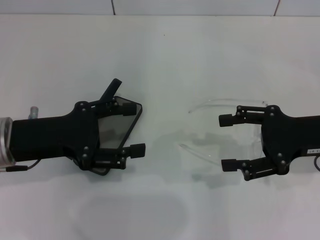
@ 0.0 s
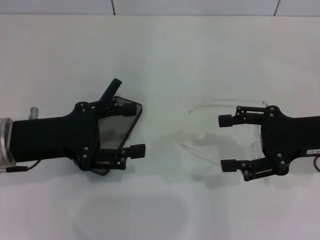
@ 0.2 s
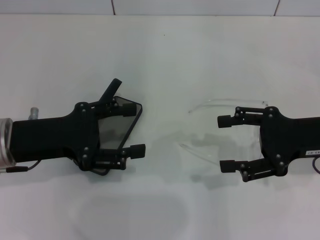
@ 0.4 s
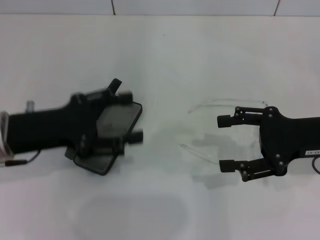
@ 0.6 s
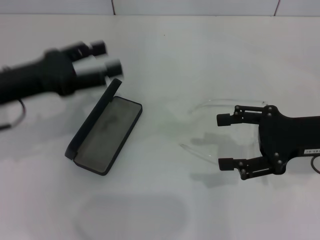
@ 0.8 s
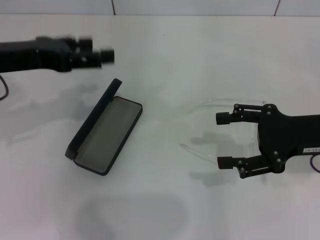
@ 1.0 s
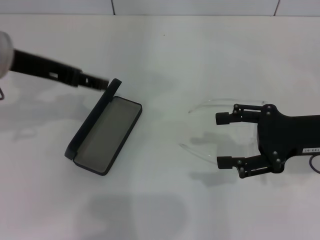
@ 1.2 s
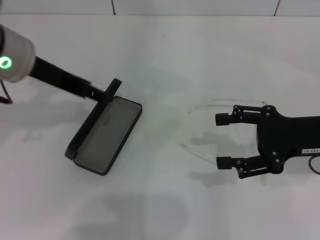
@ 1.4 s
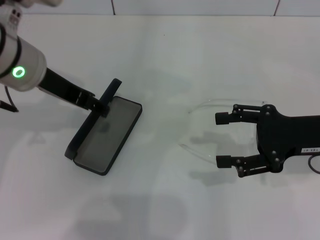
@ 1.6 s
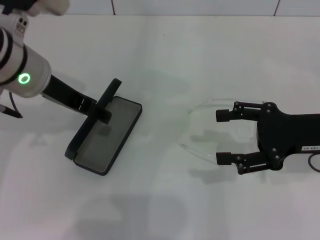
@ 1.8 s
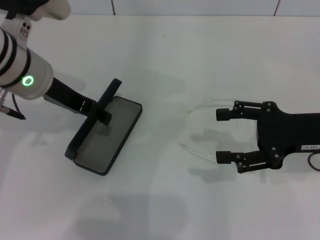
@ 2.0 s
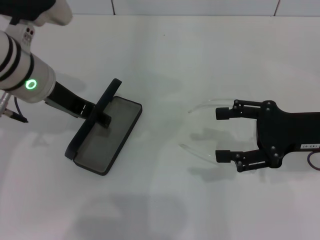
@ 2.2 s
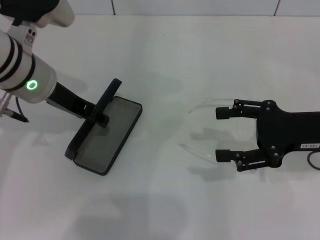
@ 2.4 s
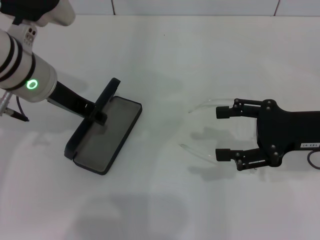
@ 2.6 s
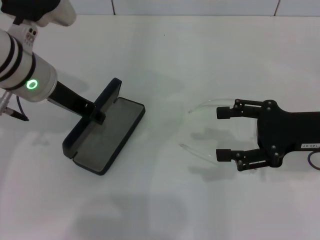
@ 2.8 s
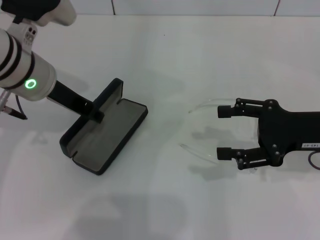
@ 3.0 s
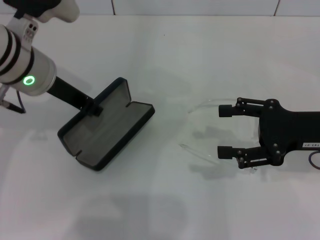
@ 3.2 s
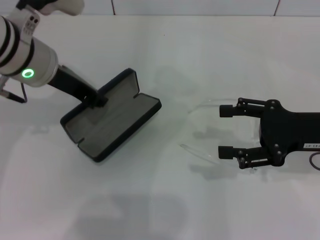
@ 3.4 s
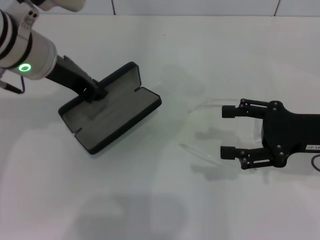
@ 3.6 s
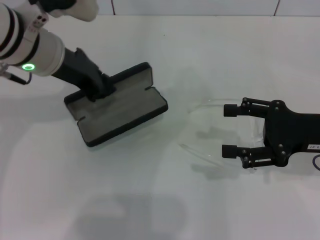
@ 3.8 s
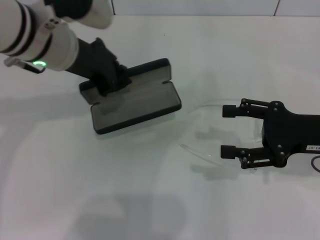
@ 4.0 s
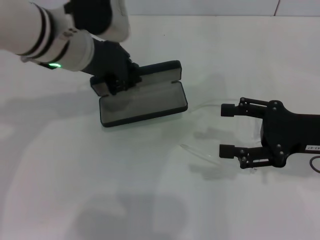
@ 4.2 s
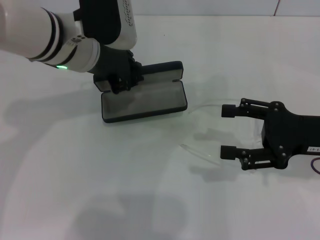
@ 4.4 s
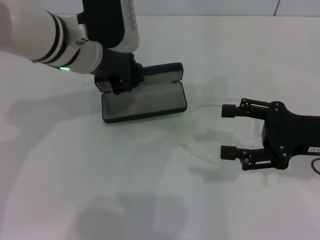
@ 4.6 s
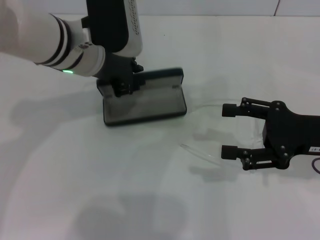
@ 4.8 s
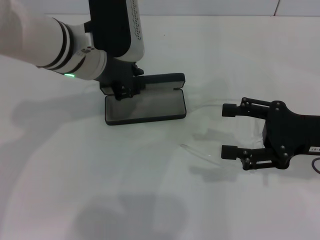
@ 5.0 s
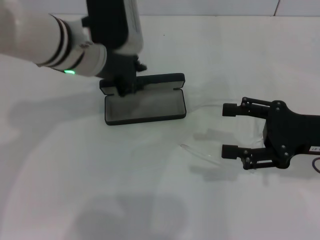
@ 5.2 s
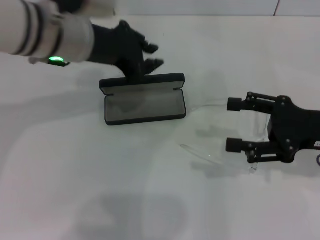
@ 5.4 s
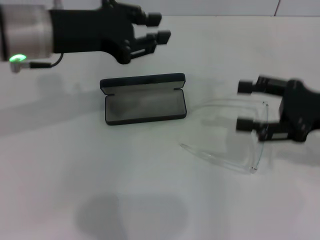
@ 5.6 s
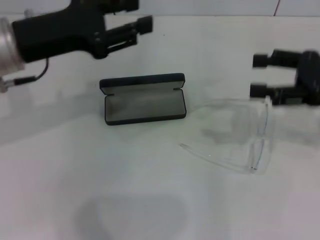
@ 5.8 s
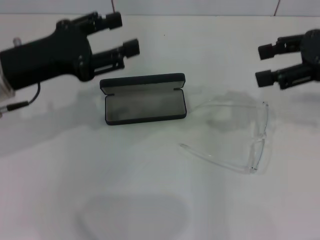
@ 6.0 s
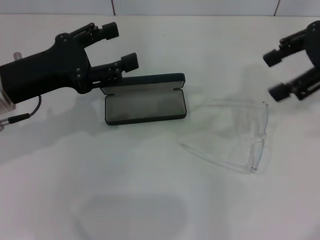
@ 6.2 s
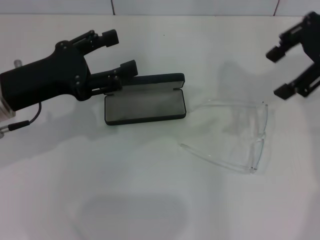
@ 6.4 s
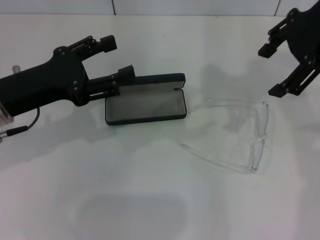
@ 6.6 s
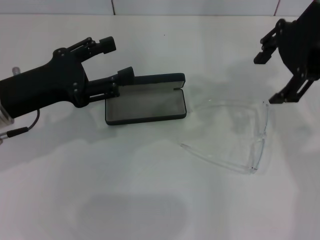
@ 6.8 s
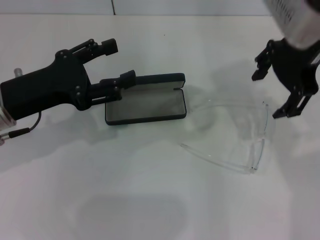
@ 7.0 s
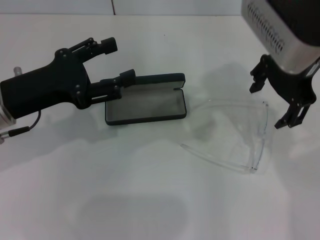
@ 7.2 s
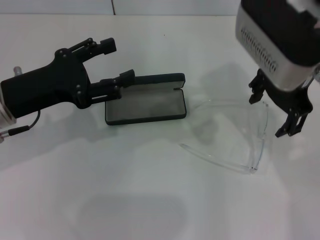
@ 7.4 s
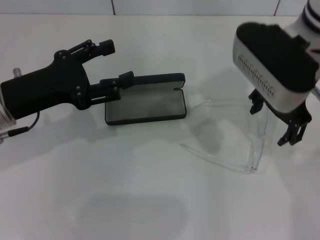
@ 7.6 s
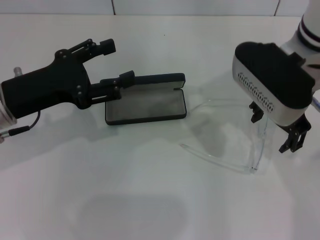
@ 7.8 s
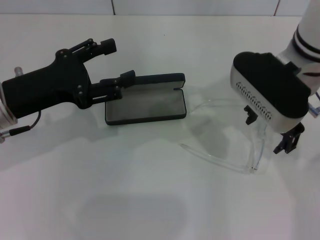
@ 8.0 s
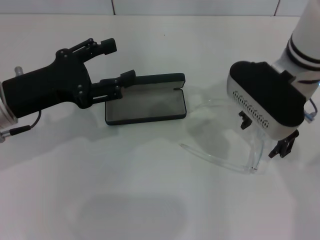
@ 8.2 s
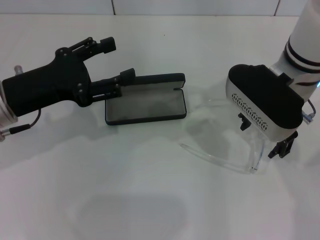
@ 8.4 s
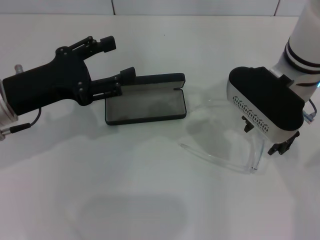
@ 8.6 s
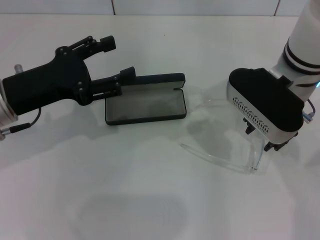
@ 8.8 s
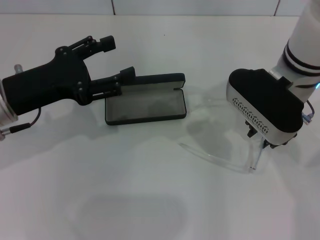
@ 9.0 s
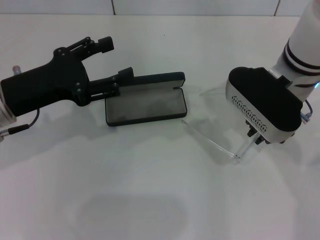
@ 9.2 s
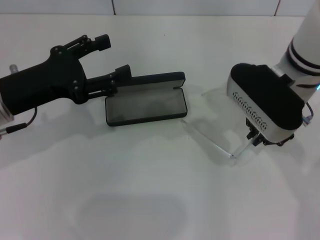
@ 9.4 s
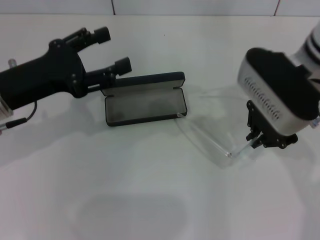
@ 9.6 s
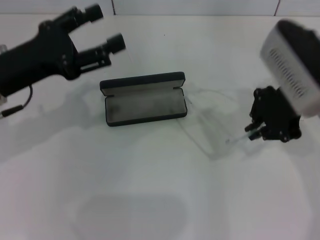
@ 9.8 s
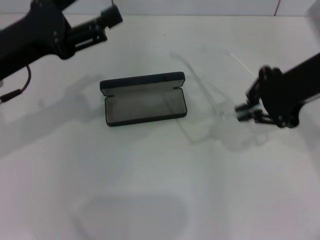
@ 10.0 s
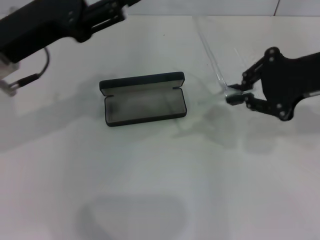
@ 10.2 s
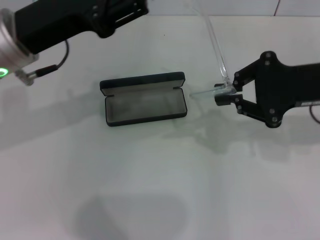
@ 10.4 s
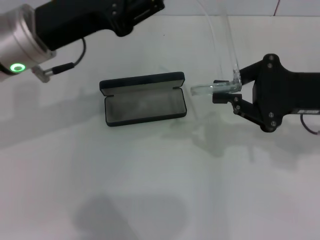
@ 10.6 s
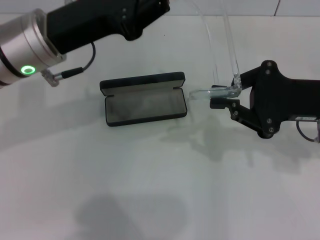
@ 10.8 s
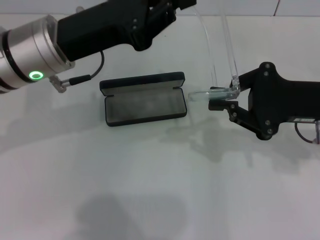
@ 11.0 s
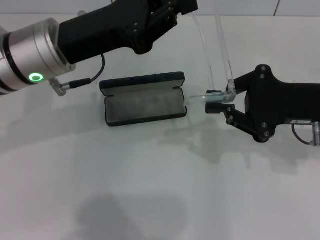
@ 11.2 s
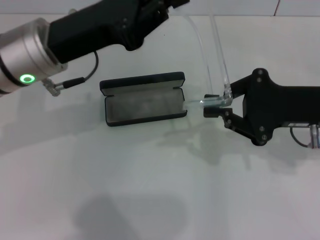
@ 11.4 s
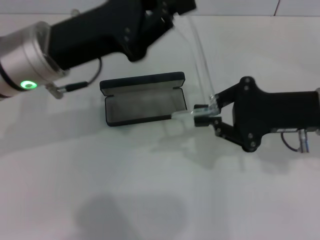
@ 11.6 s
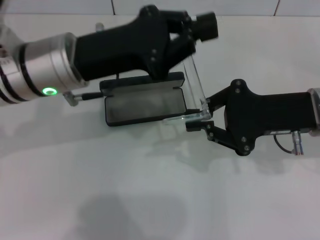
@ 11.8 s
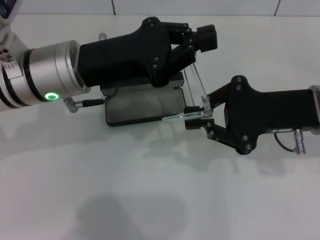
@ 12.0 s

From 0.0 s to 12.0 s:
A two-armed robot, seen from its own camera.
Step, from 0.0 s to 3.2 s: Grab the glasses case with your left hand.
Step, from 3.4 s to 4.8 s: Place the glasses case in the center of the table with your left hand.
Step, from 5.2 s to 9.2 s: Grab the eyeglass frame with your right hand.
From 0.0 s to 1.6 s: The left gripper moves upward, forward and to the right, approximately 15 cm.
From 1.6 s to 3.0 s: The left gripper closes up.
From 3.0 s to 4.4 s: The left gripper moves roughly 5 cm.
From 4.4 s to 6.0 s: The left gripper shifts about 15 cm to the left and backward, and opens up; the right gripper heads upward and forward, covering some 15 cm.
From 6.0 s to 7.6 s: The right gripper goes about 15 cm to the left, while the left gripper opens.
From 7.6 s to 9.0 s: The right gripper travels downward by roughly 5 cm, and closes.
From 9.0 s to 10.4 s: The right gripper moves to the right, about 10 cm, and closes up. The left gripper shifts about 5 cm upward.
From 10.4 s to 12.0 s: The left gripper shifts by about 5 cm, and closes up; the right gripper shifts by roughly 5 cm.

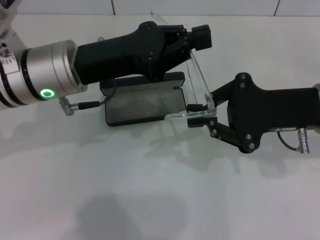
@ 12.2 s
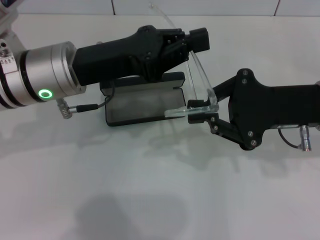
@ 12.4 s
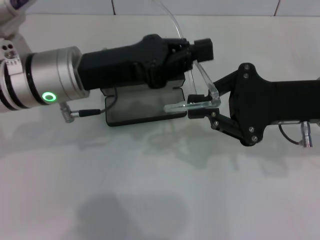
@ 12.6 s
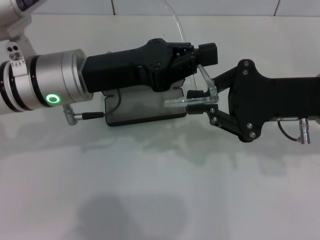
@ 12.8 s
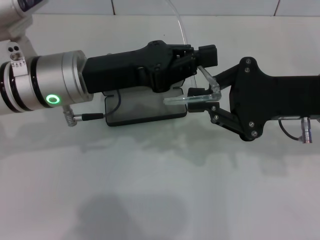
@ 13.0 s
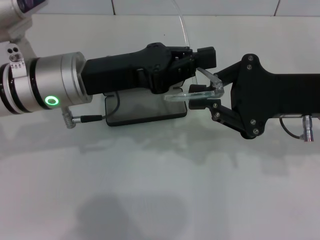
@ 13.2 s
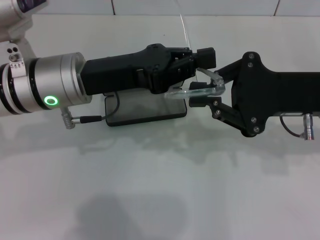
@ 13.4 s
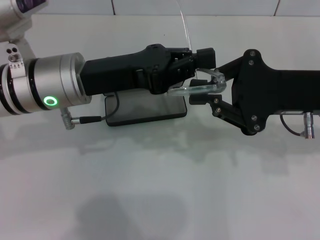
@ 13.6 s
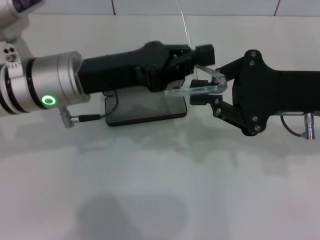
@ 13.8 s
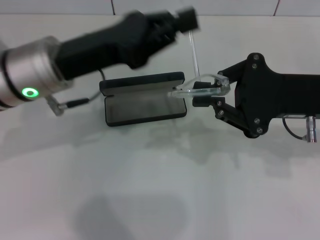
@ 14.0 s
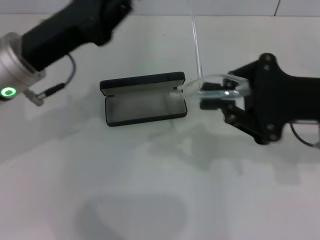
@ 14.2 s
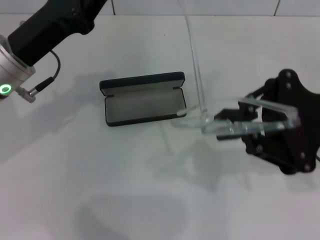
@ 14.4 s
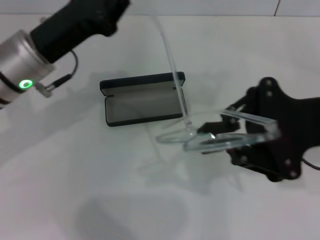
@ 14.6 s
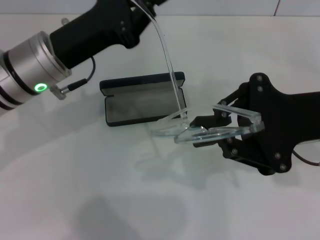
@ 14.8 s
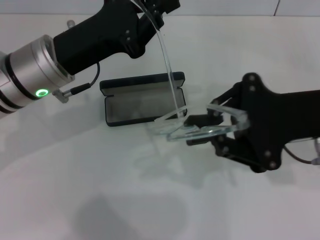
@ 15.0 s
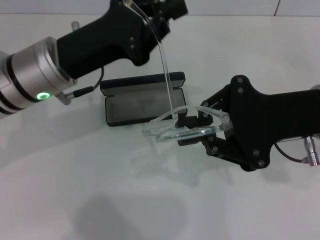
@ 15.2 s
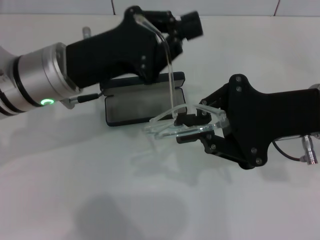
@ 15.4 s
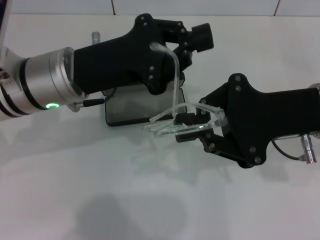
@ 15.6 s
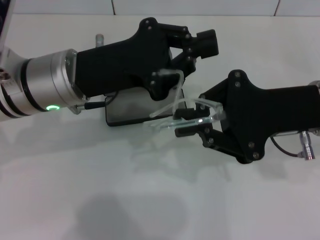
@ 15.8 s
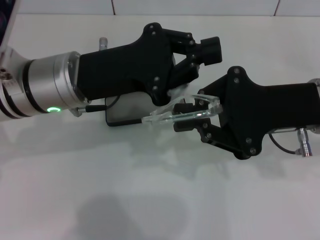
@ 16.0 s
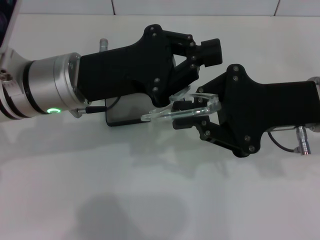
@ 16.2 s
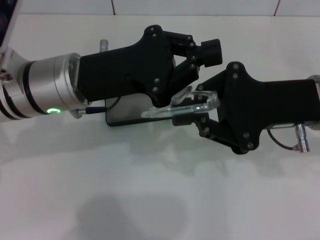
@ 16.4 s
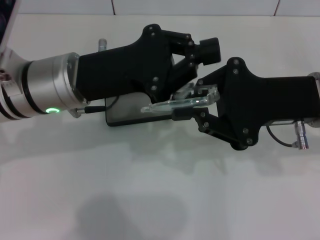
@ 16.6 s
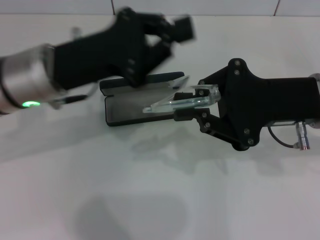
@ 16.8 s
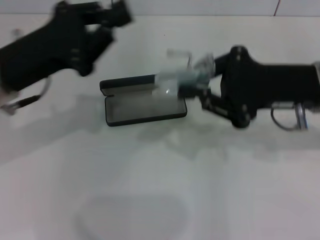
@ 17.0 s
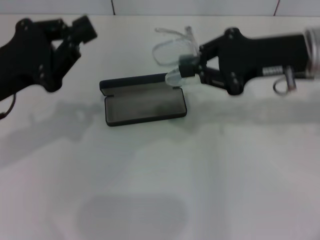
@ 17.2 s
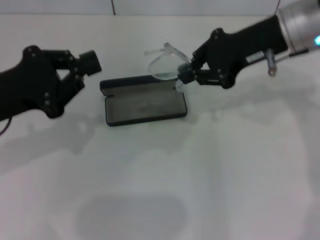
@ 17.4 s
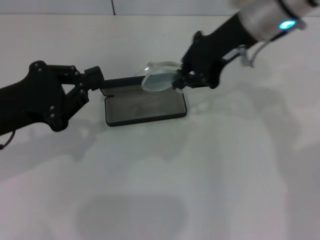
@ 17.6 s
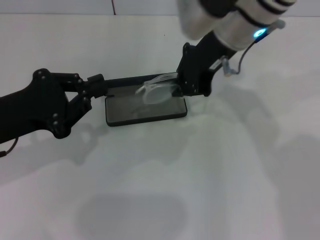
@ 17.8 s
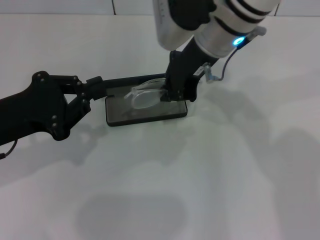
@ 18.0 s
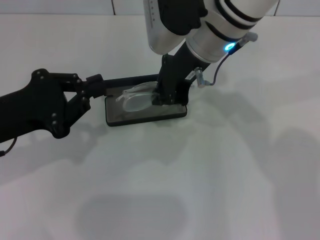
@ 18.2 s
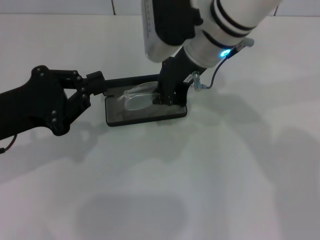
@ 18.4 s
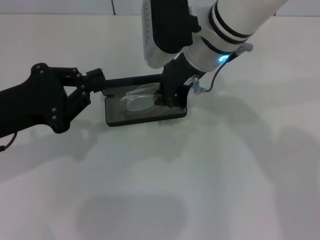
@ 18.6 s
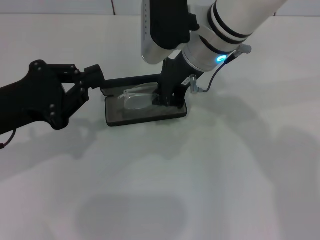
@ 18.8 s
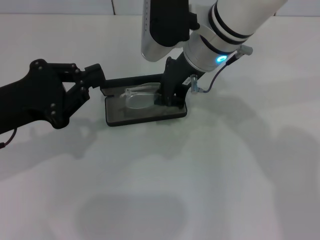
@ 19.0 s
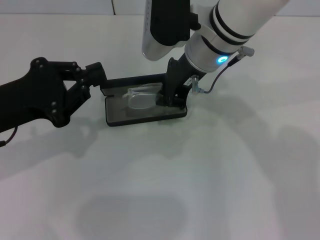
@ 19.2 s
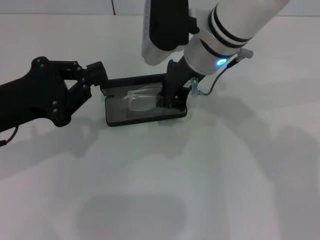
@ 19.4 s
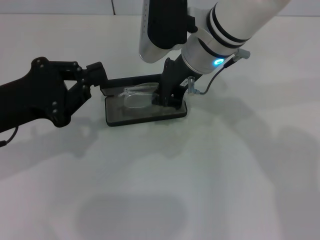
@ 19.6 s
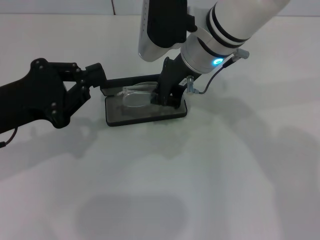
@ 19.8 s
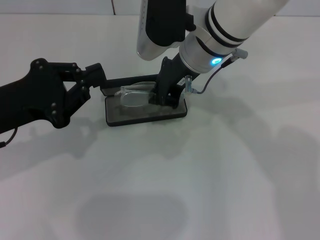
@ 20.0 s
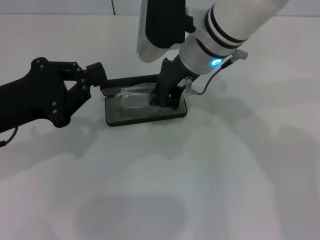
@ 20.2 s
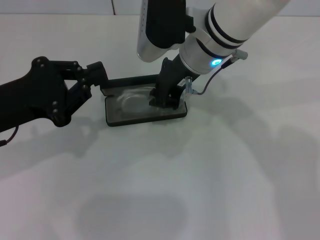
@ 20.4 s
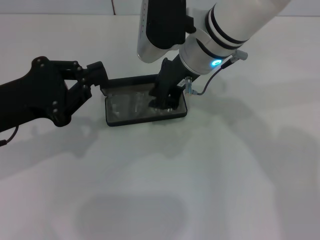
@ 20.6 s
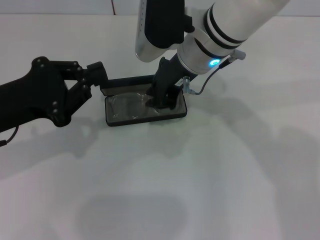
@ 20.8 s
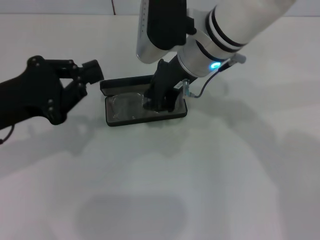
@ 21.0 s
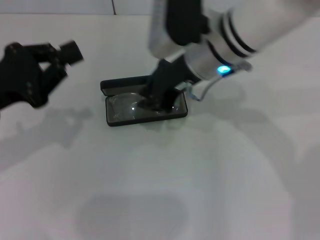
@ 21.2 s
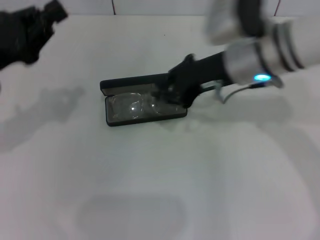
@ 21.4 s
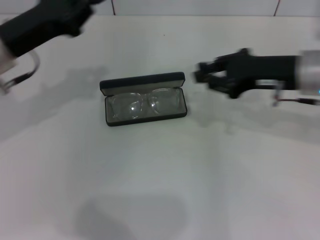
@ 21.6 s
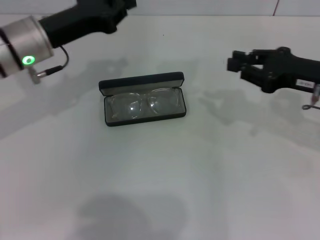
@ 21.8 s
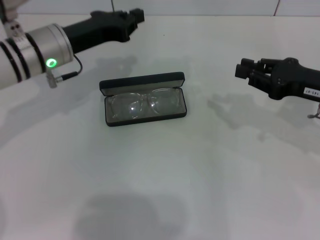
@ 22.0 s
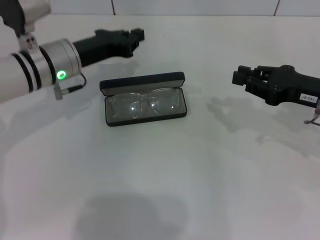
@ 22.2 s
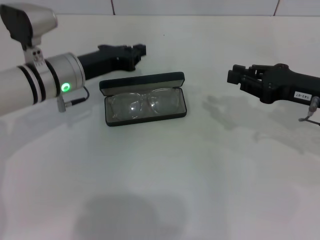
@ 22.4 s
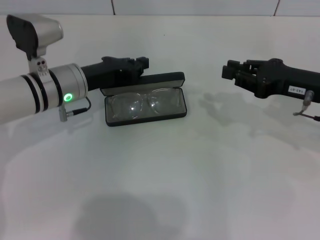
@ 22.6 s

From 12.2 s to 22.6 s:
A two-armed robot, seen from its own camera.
Step, from 12.2 s to 16.4 s: Fold the frame with your left hand.
Step, from 16.8 s to 20.8 s: Put the glasses into the case with your right hand.
From 16.6 s to 18.2 s: The left gripper shifts approximately 15 cm to the left and backward, while the right gripper is displaced to the left and forward by some 15 cm.
From 18.2 s to 21.2 s: There are only small adjustments of the grippers.
From 21.2 s to 22.6 s: The right gripper moves to the right, roughly 20 cm. The left gripper is displaced forward, to the right and downward by about 20 cm.
